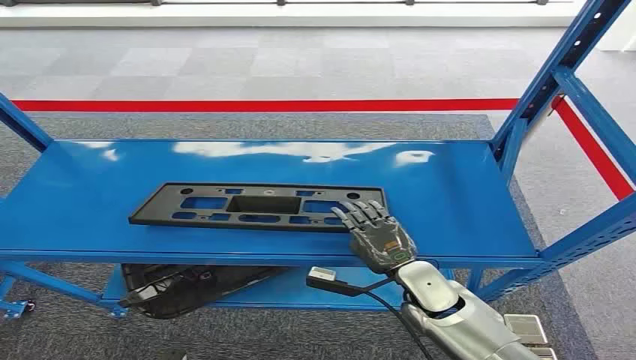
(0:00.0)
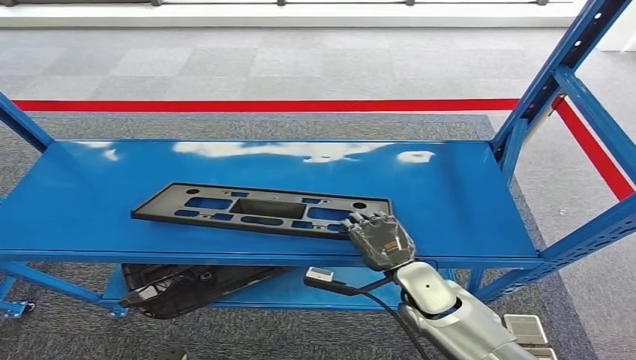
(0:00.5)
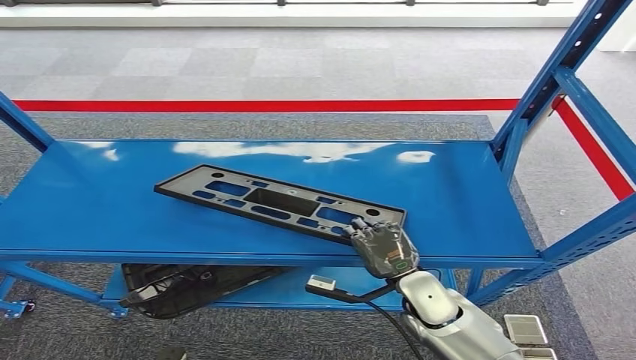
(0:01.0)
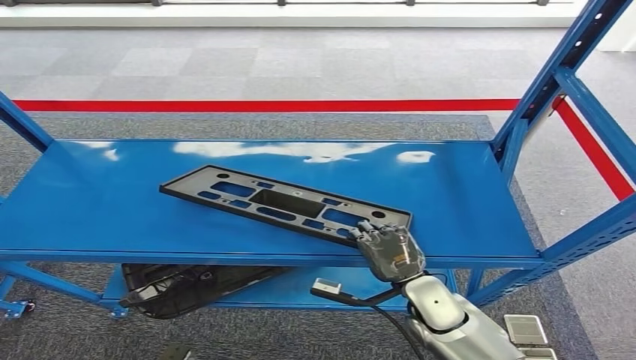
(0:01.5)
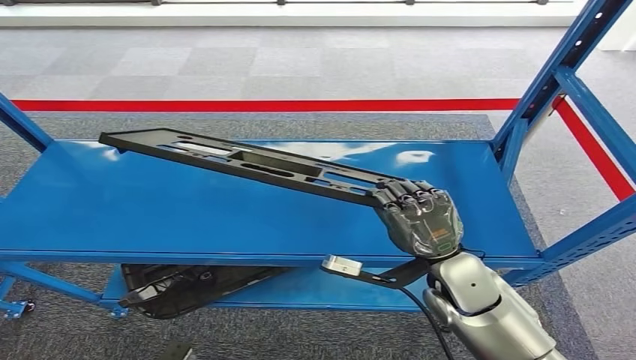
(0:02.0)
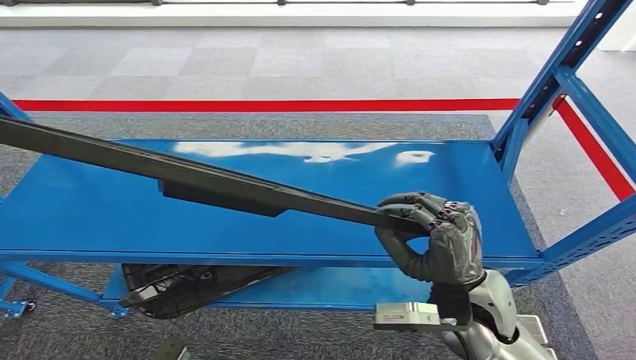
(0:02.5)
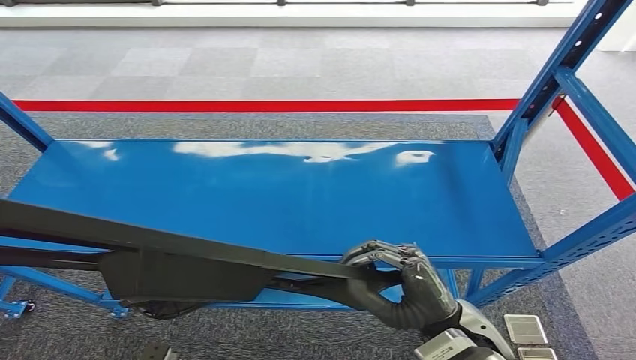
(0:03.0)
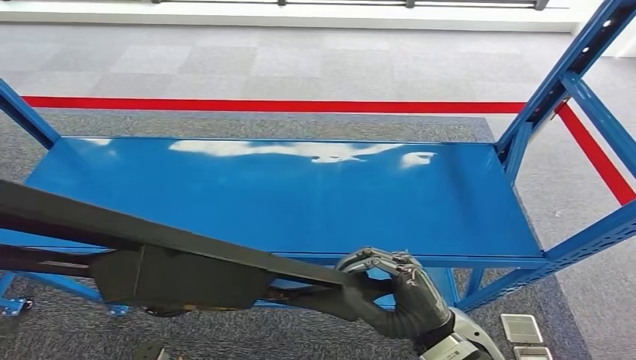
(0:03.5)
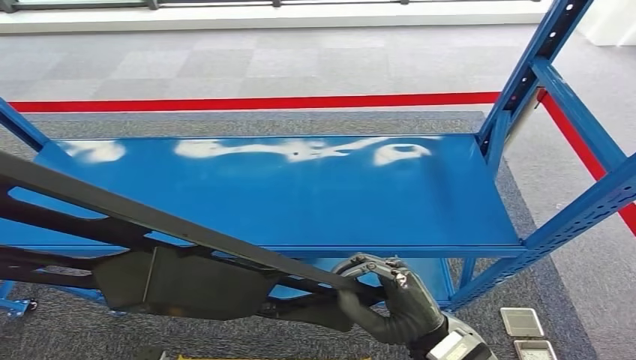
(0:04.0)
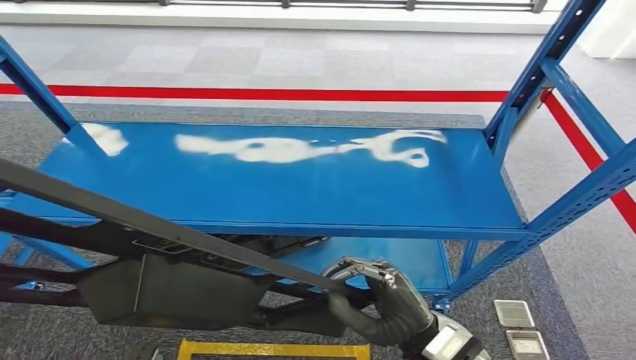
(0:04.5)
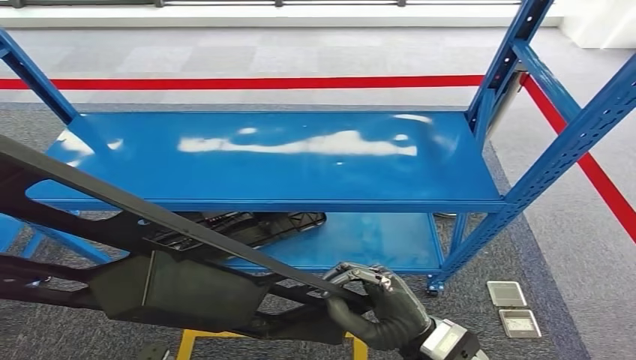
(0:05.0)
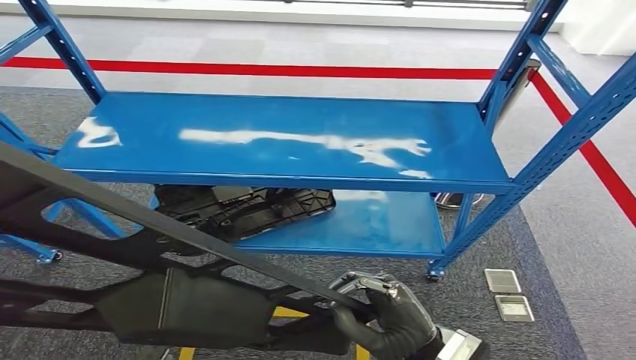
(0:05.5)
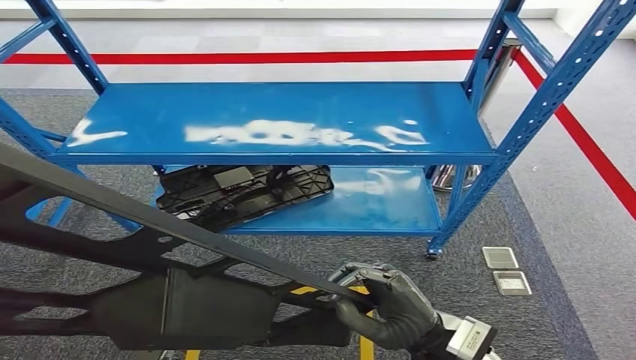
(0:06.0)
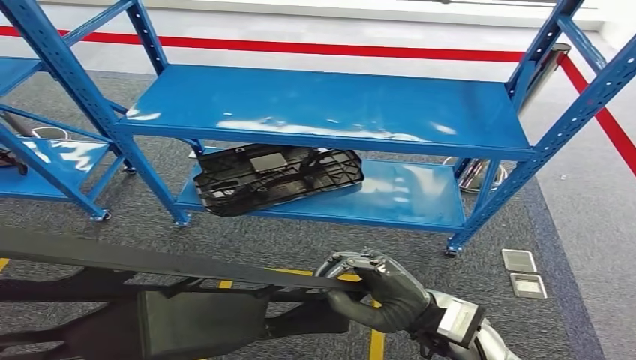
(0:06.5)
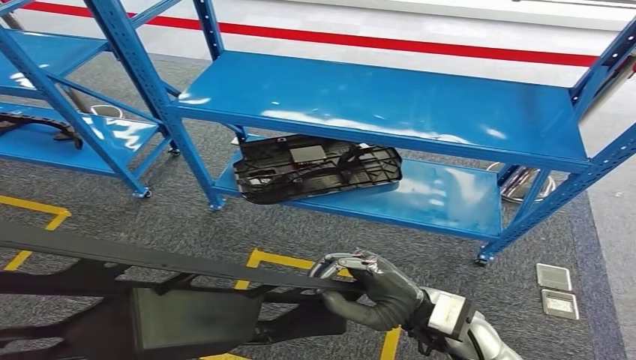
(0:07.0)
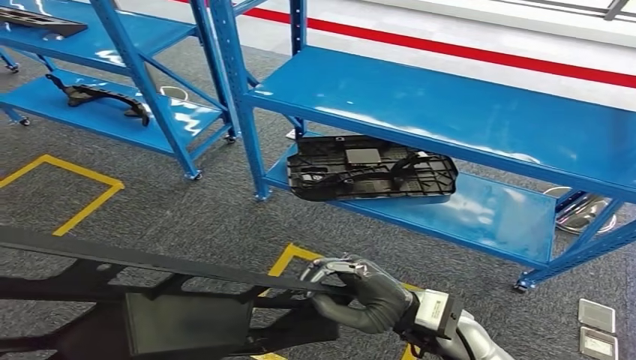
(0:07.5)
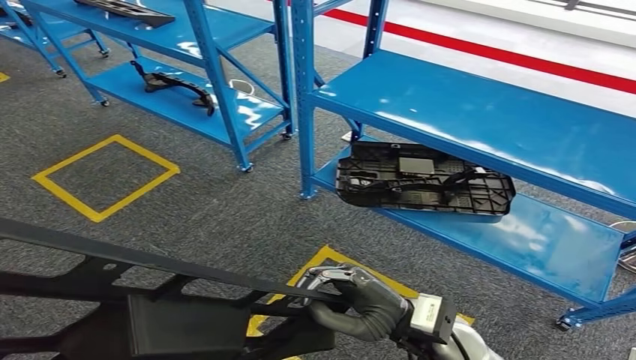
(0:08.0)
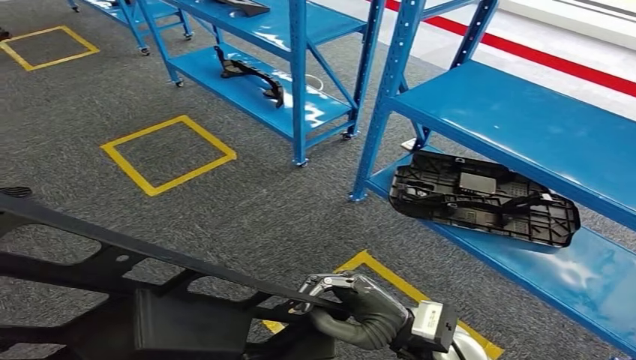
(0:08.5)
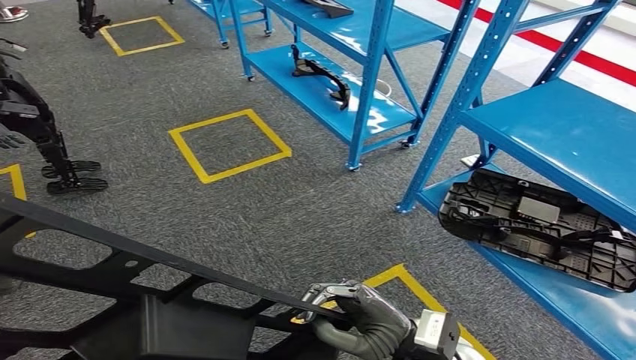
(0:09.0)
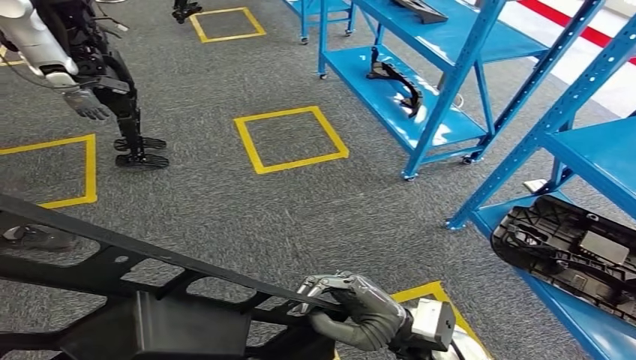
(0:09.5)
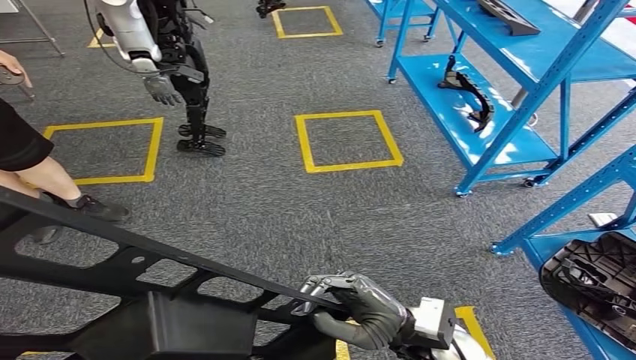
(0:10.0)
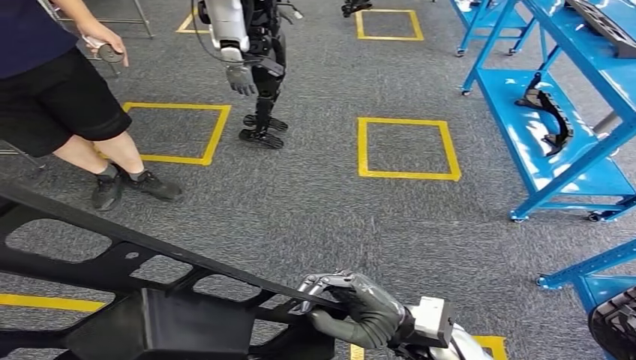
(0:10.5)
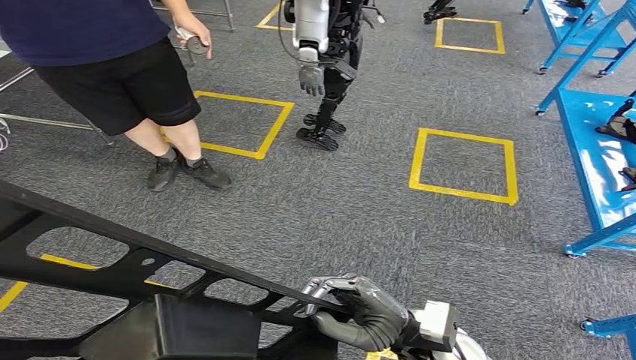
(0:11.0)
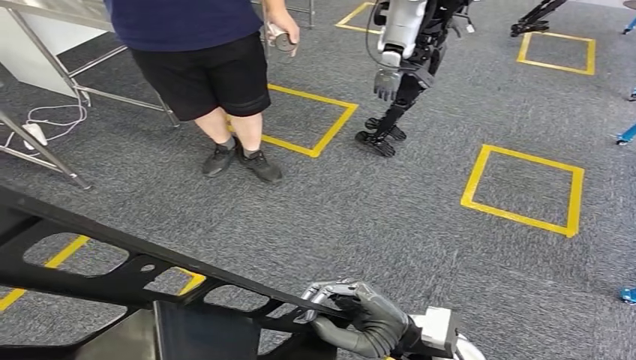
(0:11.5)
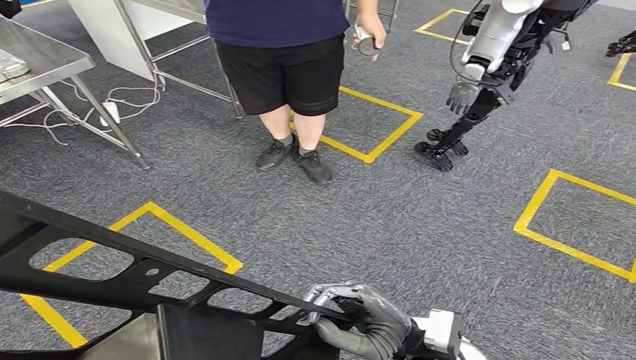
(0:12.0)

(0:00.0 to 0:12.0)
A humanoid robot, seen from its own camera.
Step, 0:00.0 - 0:02.5: Pick up the large material from the shelf.

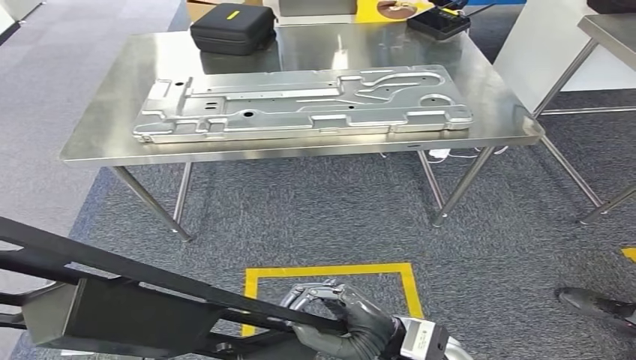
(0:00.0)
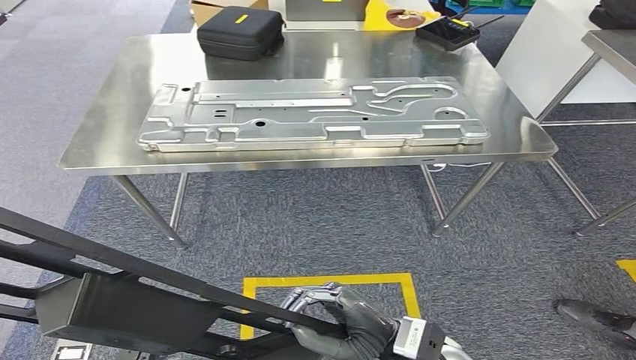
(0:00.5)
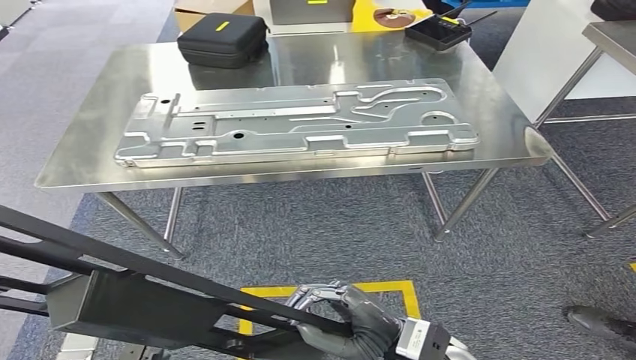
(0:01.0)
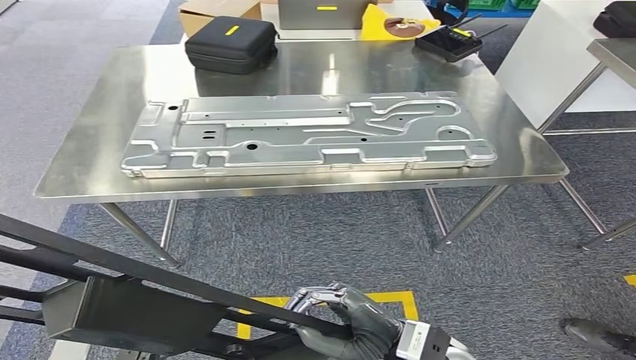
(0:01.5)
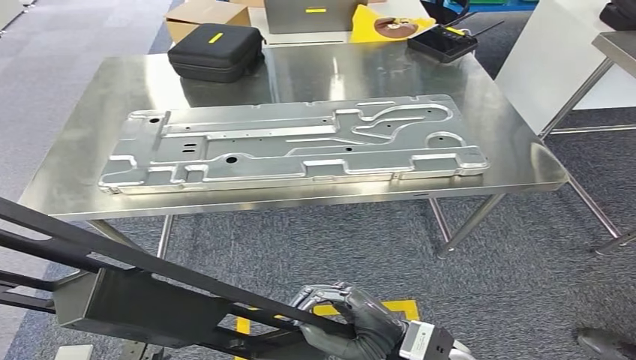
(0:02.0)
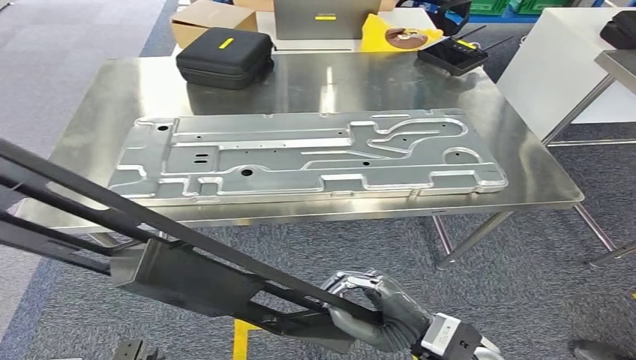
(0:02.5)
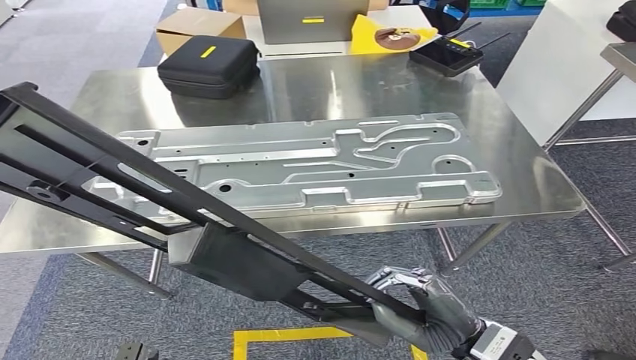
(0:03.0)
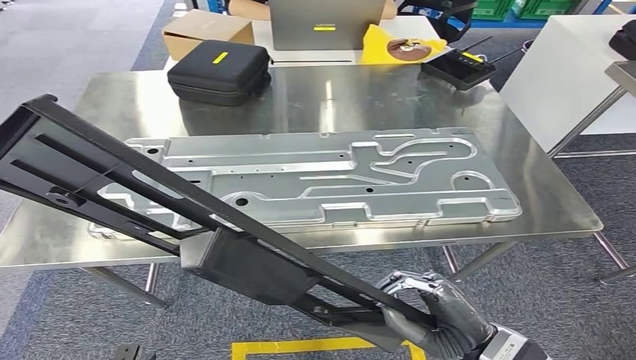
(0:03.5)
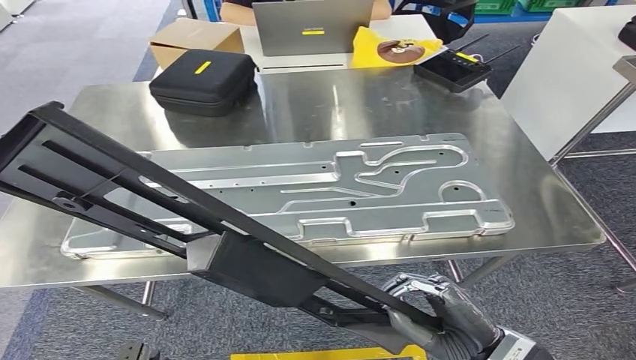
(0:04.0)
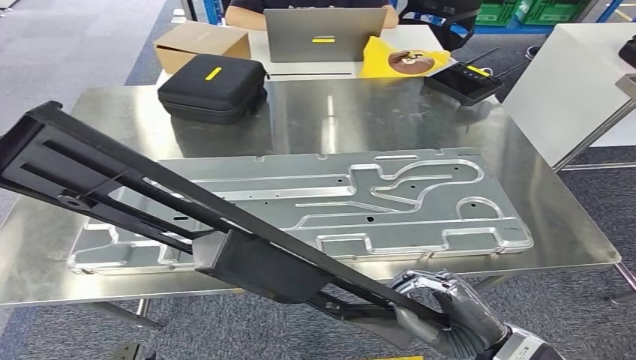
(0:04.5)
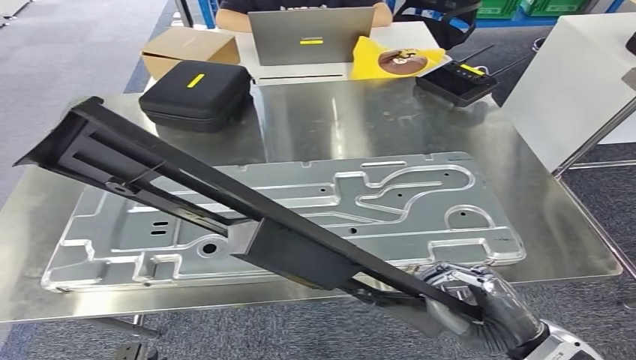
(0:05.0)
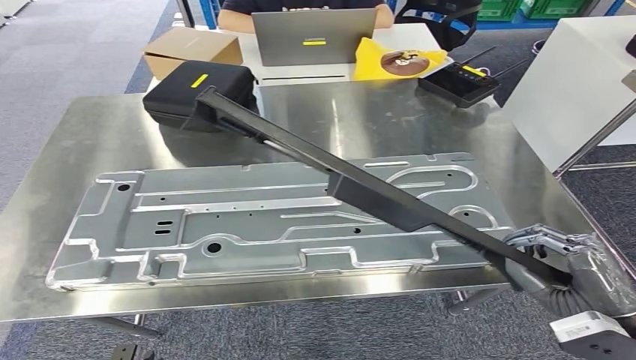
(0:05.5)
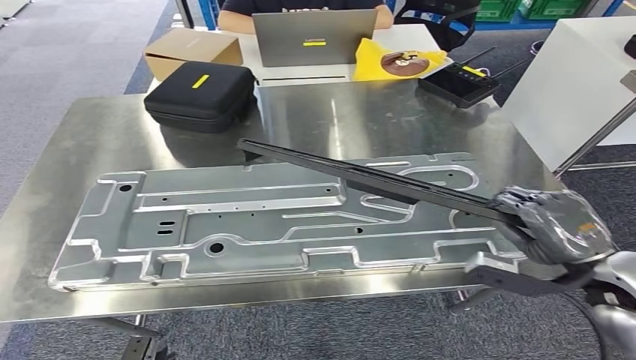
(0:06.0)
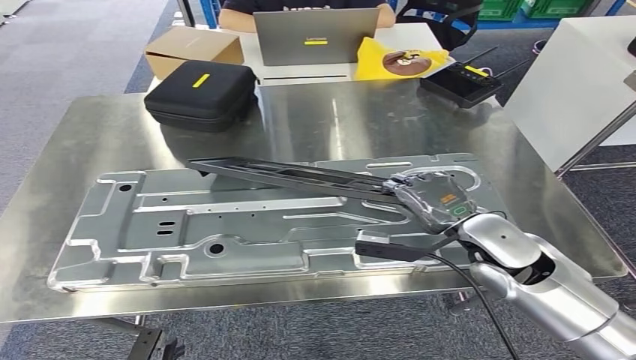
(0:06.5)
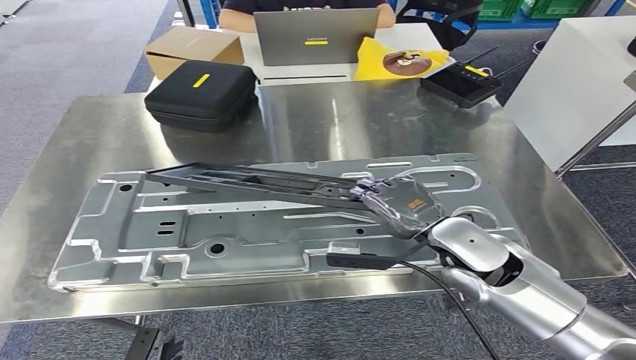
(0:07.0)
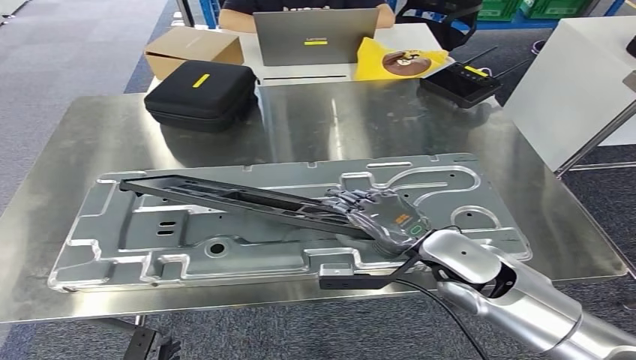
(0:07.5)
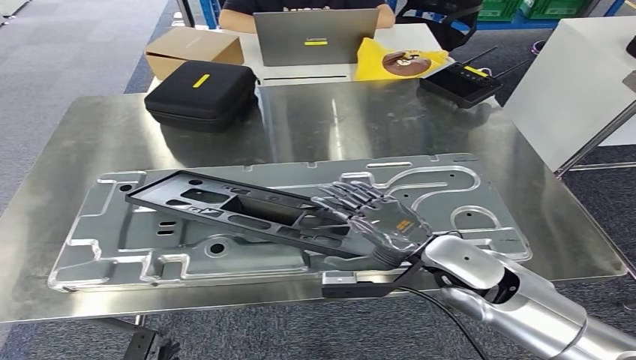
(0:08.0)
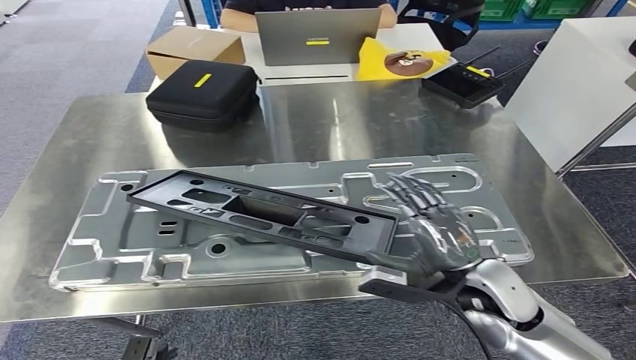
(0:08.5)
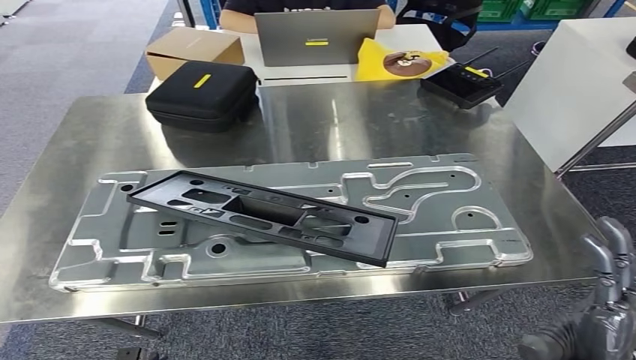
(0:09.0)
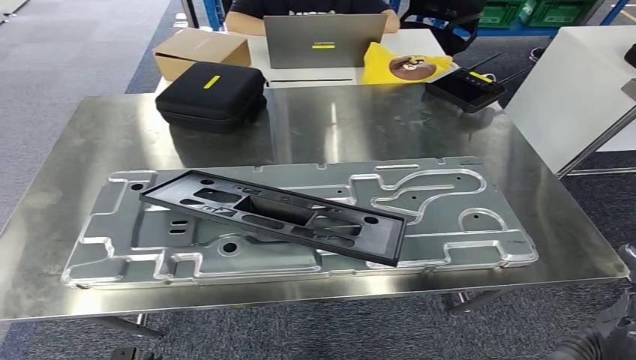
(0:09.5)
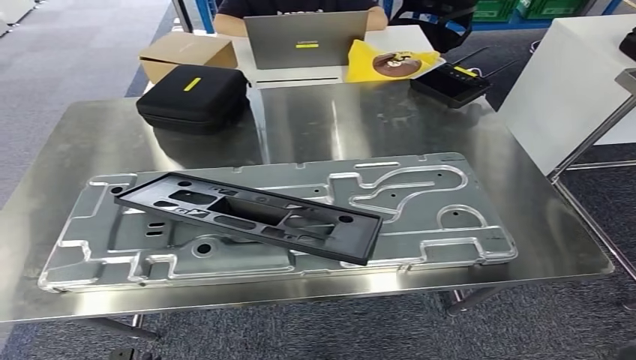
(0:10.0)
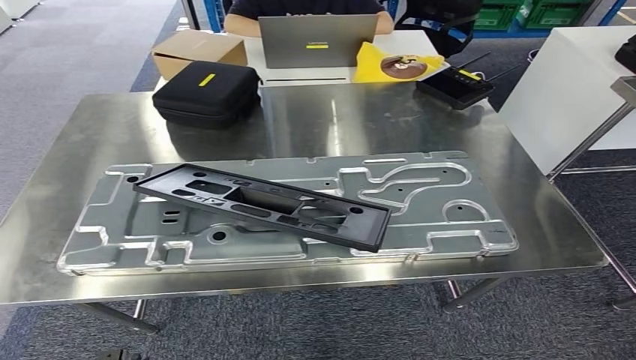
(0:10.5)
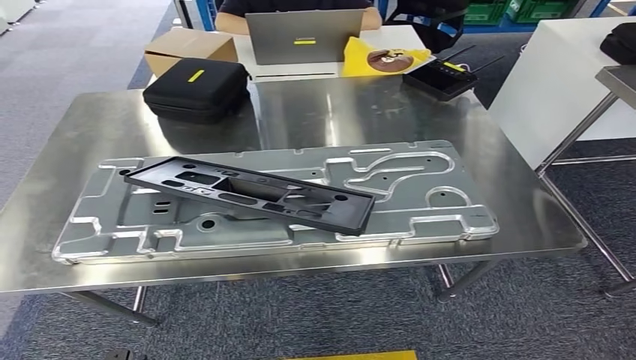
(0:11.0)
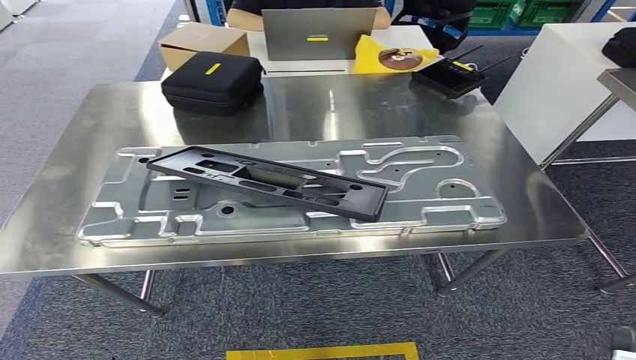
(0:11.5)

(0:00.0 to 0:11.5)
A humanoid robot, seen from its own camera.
Step, 0:00.0 - 0:03.5: Move the large material to the workbench.
Step, 0:04.5 - 0:10.0: Insert the large material into the corresponding slot on the workbench.
